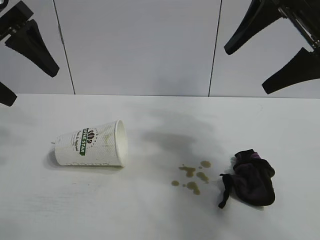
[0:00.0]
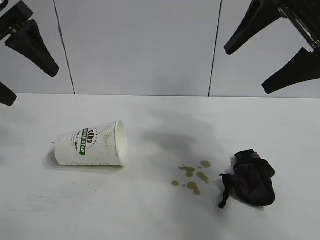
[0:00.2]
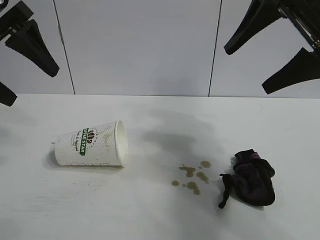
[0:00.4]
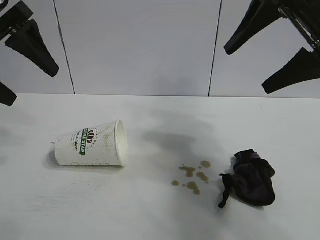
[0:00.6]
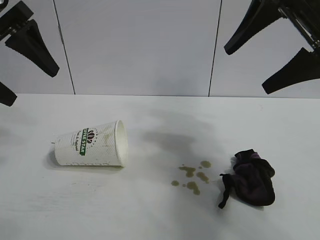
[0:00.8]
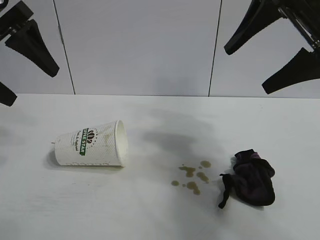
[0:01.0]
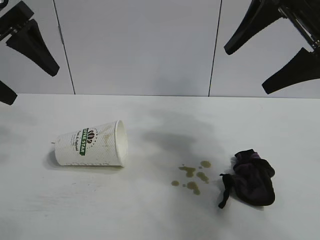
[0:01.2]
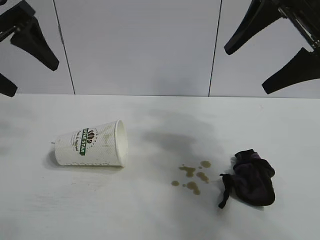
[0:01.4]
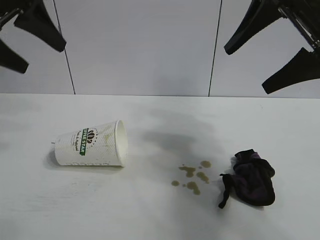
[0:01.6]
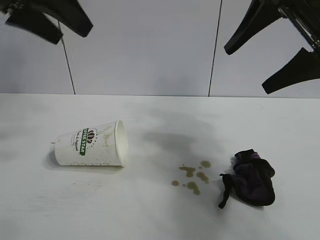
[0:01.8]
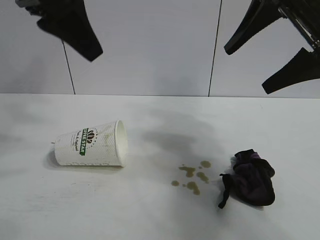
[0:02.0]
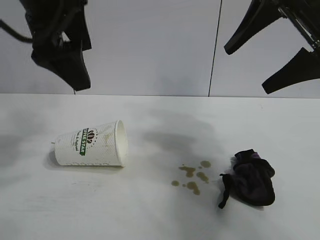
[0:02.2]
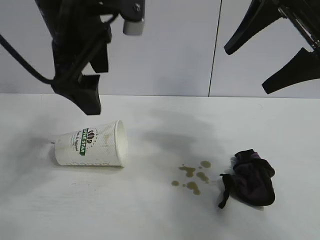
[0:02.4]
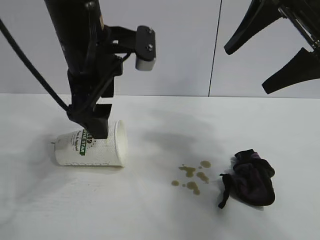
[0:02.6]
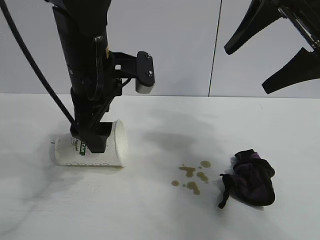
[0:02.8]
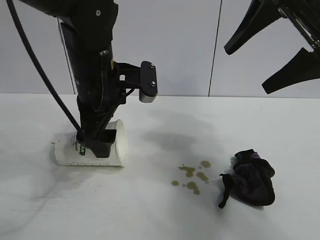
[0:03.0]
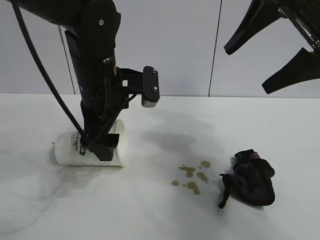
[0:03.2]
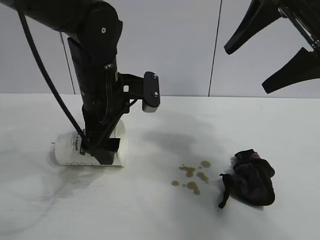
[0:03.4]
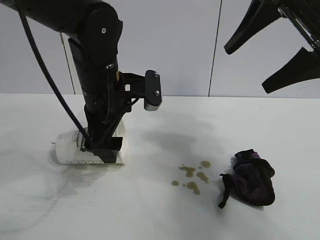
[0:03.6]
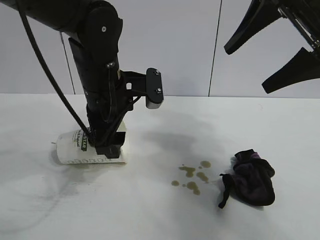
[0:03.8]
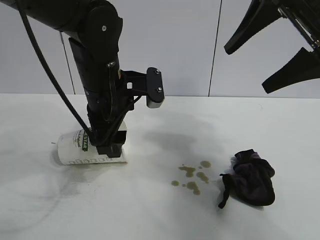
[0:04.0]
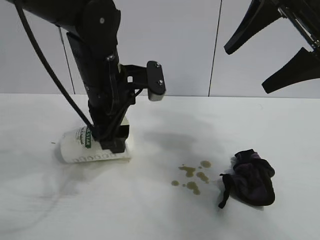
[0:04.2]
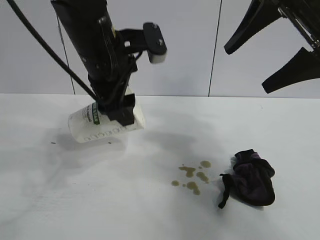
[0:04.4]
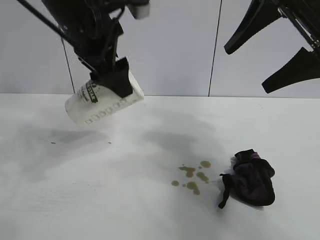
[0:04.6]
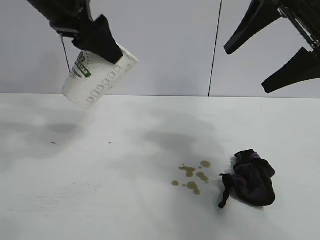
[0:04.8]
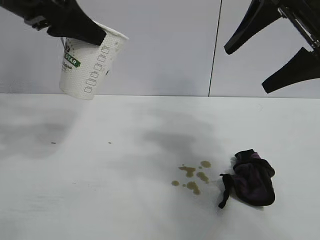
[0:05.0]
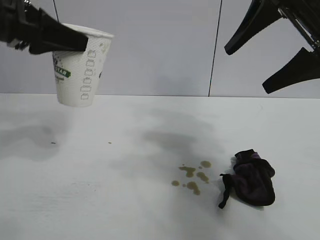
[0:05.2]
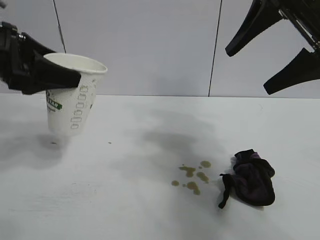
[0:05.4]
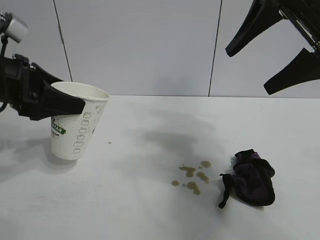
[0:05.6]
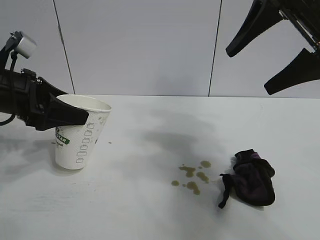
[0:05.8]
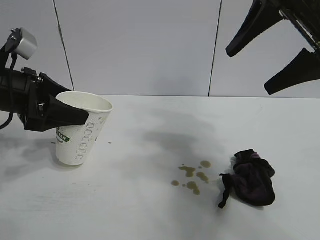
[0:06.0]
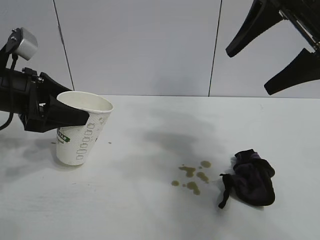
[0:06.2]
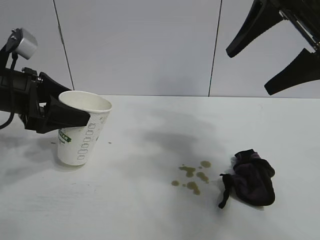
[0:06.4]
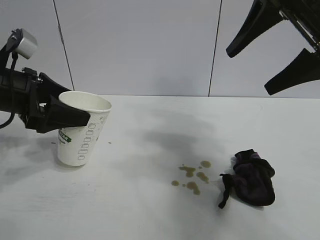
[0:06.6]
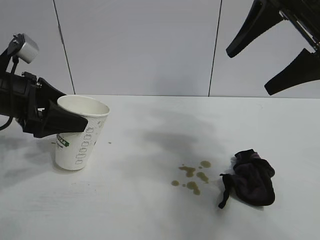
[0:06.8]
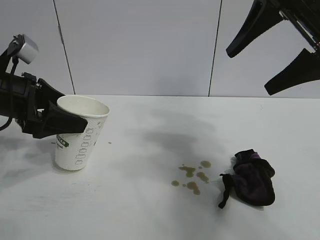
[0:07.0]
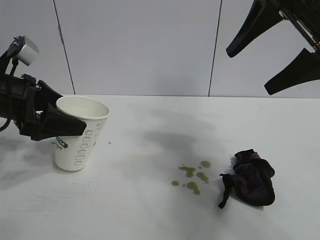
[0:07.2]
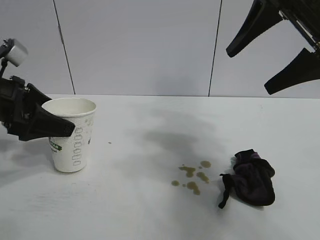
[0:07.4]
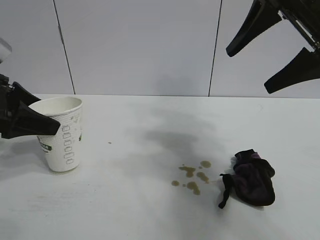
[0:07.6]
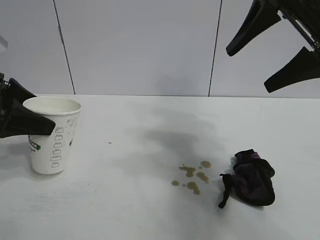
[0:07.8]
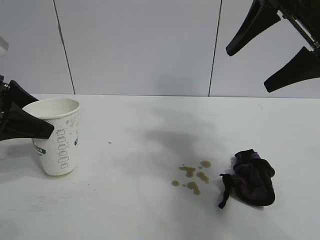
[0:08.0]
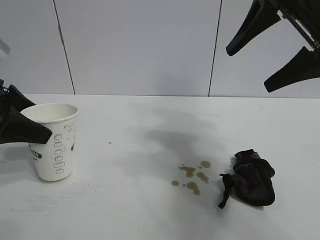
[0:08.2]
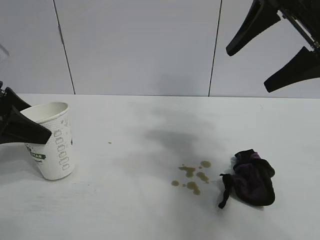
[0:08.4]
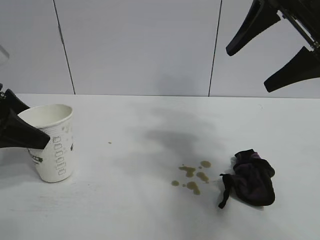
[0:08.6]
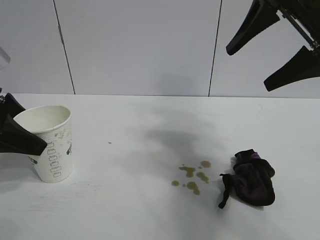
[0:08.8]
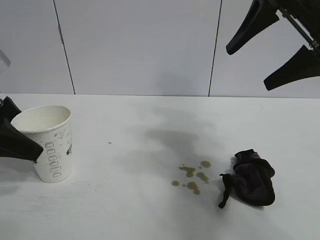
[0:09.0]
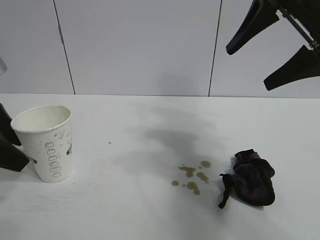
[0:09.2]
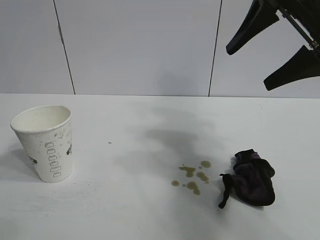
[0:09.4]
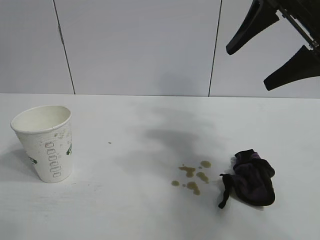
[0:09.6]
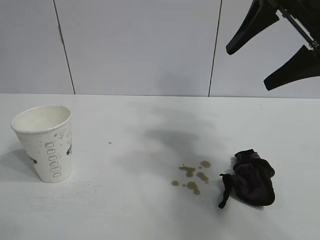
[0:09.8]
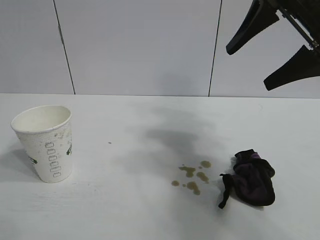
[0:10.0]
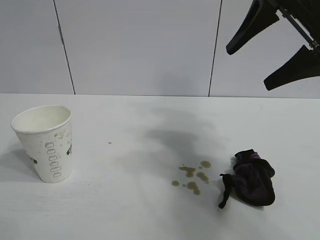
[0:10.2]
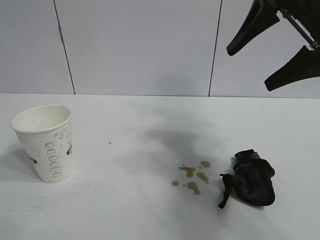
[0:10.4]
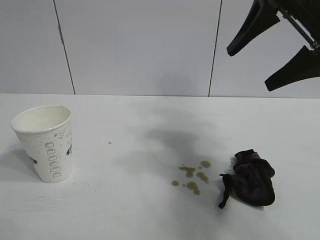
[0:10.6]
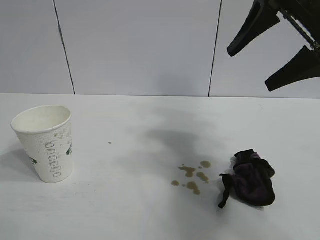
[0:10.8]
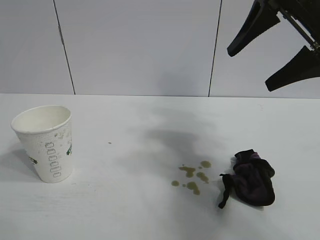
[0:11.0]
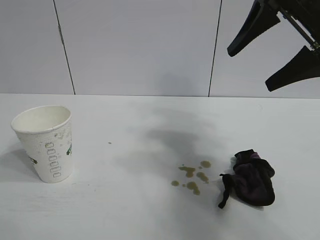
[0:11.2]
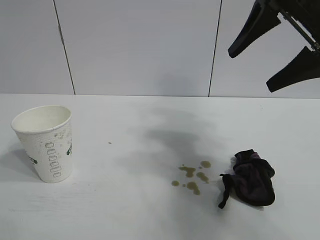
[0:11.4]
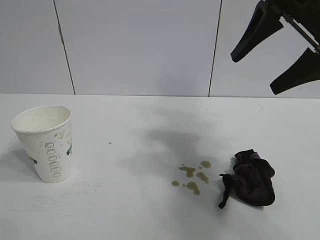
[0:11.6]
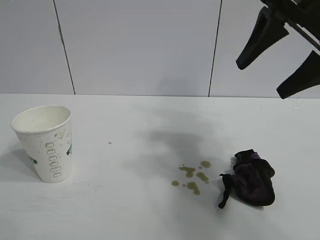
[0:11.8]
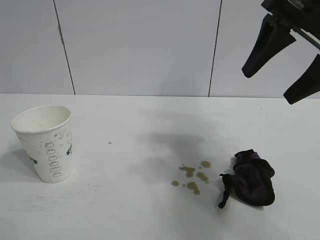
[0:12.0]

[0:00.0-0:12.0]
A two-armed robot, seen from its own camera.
Task of the whole recording: the left gripper pick up the fallen cup and place it upright, the right gripper grasp the black rag and wipe the stain on the table, the right gripper put the black rag back in its original position.
Step, 0:01.2 to 0:04.0: Grasp the paper cup with left gripper.
Step, 0:04.2 to 0:08.6: Stand the paper cup upright with left gripper.

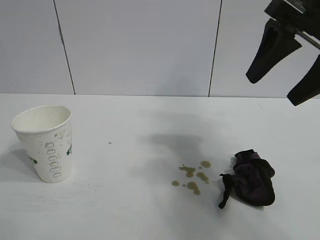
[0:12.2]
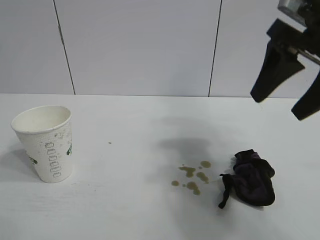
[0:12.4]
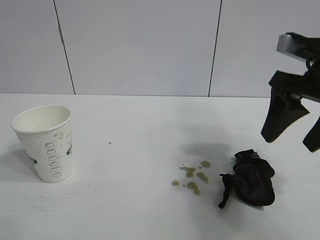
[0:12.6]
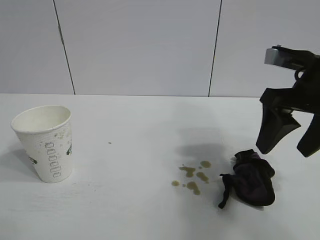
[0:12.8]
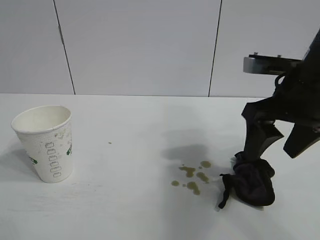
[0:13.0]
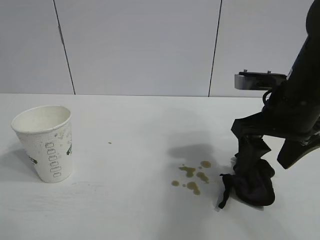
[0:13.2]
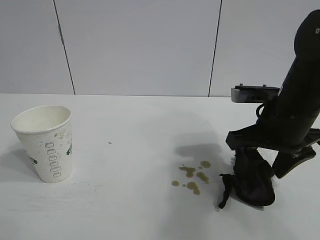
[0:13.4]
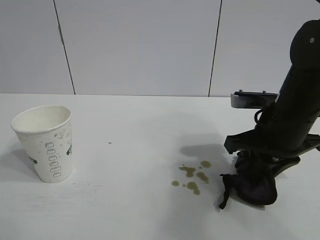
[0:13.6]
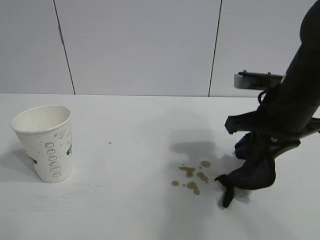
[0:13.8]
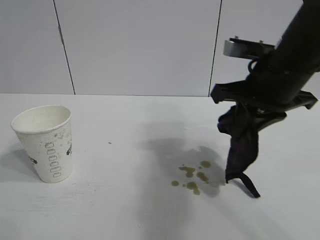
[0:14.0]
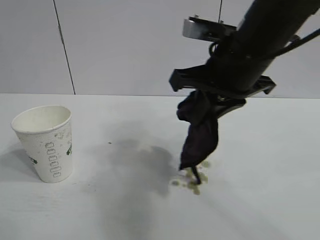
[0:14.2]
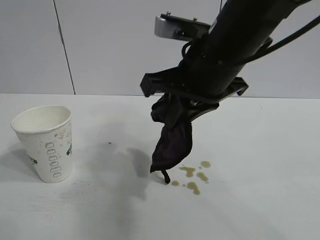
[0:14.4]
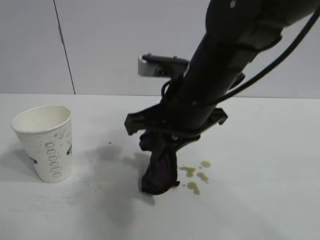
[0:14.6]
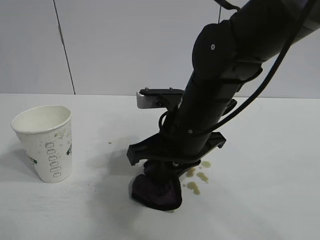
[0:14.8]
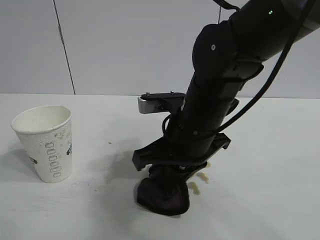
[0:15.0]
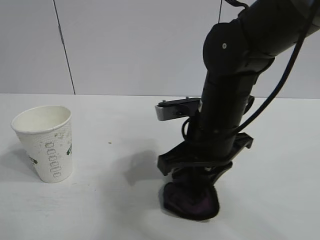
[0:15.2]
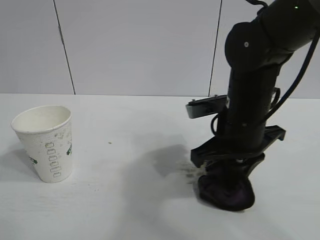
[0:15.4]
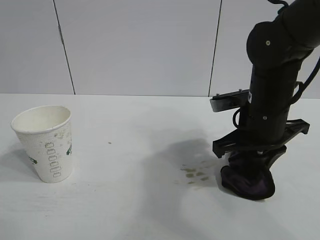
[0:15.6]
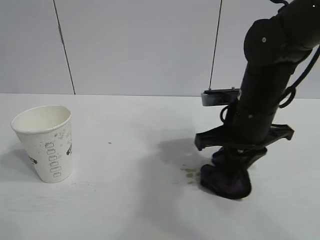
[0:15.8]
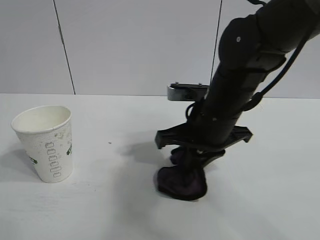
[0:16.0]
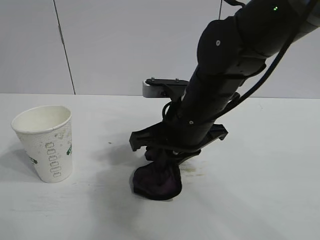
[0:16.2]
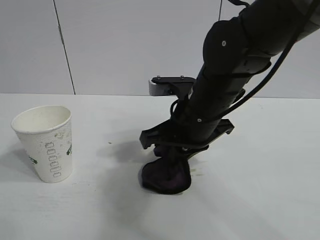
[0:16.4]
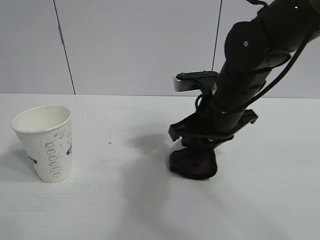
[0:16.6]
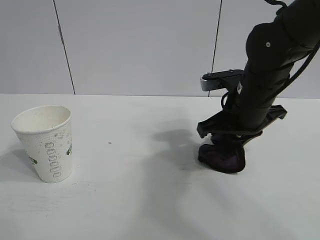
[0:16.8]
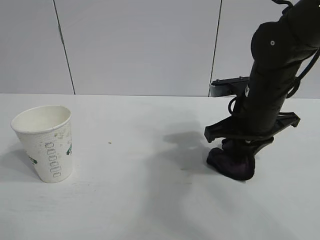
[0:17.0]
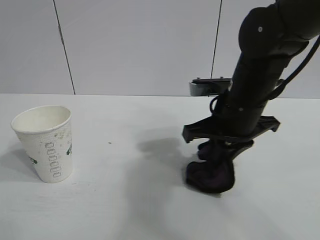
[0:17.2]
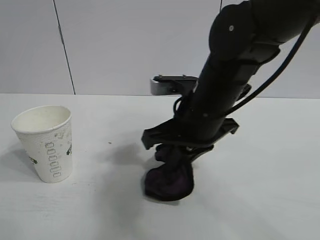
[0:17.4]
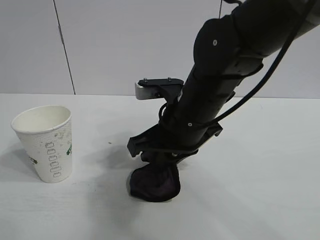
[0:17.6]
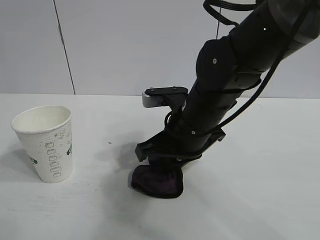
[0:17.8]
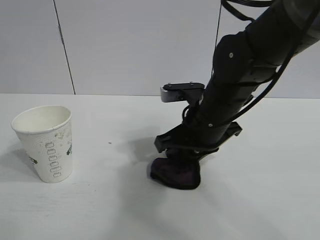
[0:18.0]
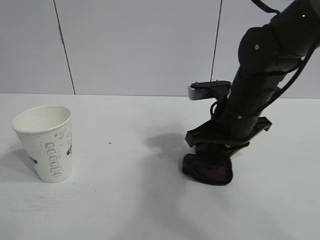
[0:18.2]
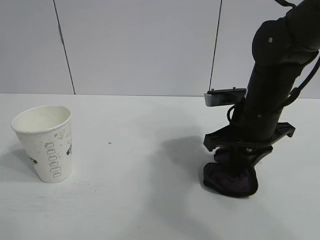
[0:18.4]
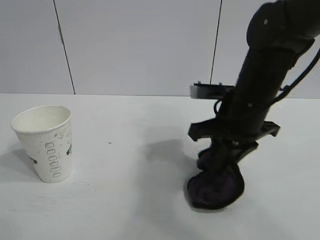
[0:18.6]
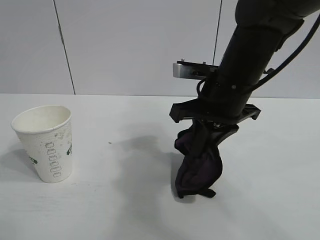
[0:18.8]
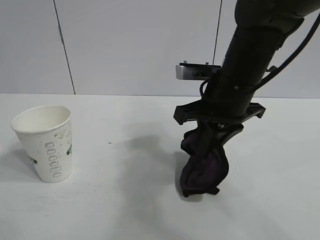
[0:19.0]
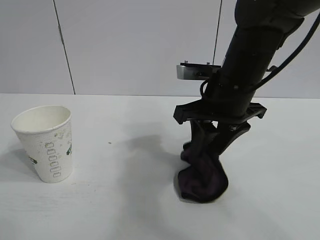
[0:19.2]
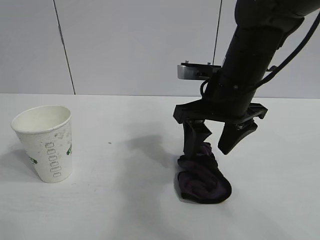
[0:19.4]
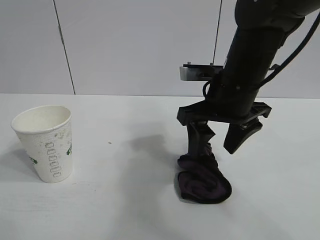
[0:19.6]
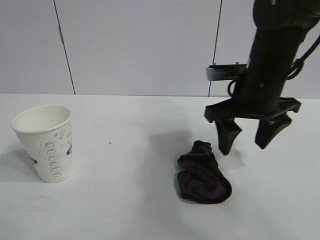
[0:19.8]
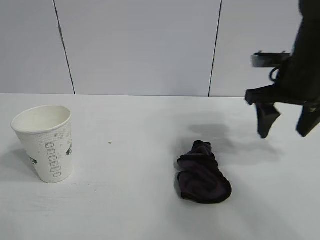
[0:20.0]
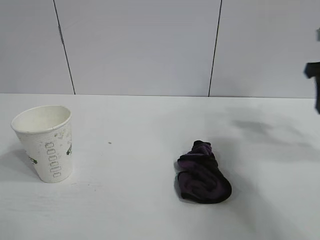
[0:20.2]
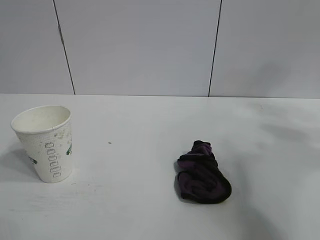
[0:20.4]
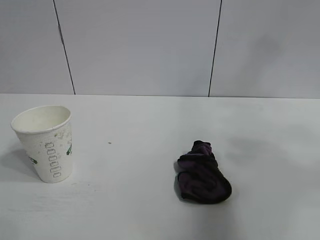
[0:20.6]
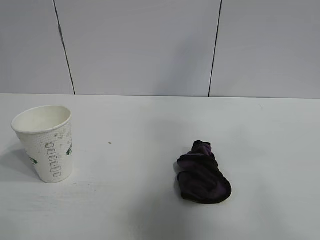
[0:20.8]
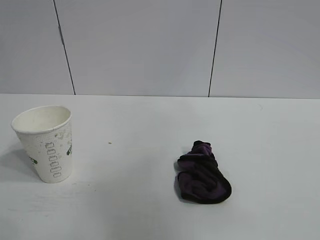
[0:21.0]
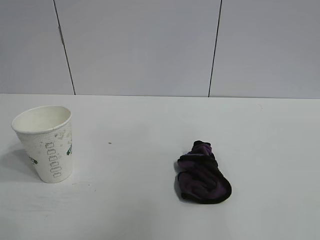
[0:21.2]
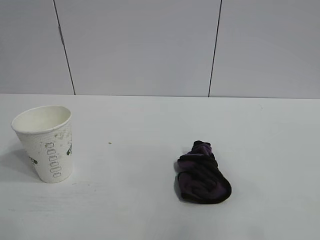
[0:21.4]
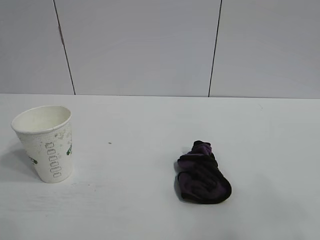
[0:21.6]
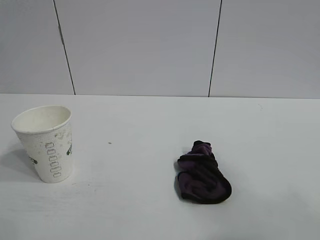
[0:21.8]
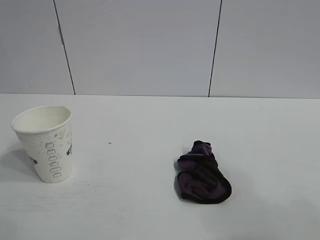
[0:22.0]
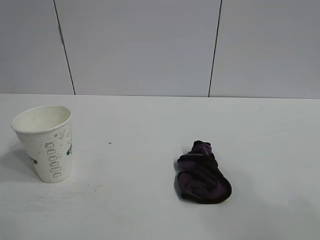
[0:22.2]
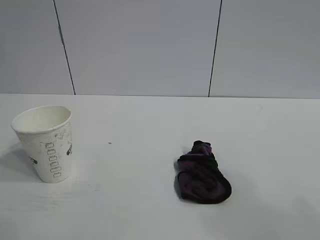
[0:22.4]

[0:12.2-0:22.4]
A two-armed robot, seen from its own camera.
Task of the whole recording: the left gripper pick up the fallen cup and place it upright, the right gripper grasp the black rag and wipe the stain on the table, the right gripper put the black rag back in its original position.
Step, 0:13.8 to 0:18.4: Wipe the stains off the table with the rag with right gripper.
Step, 0:18.6 to 0:19.2: Place the rag on the table with right gripper.
